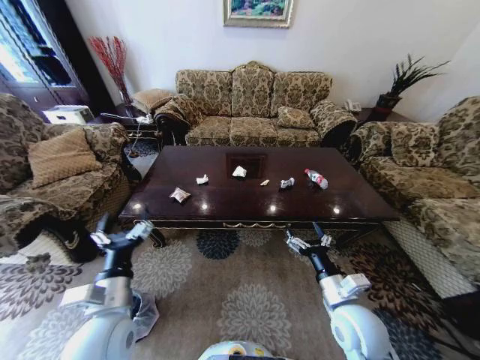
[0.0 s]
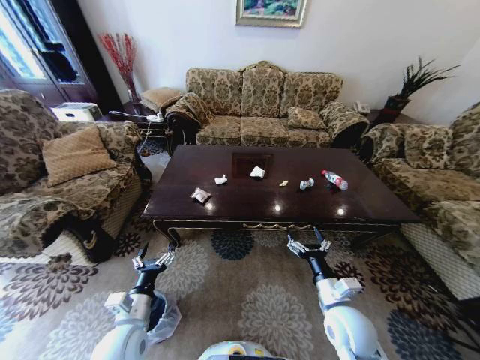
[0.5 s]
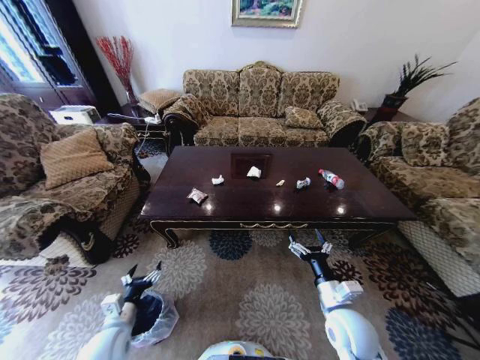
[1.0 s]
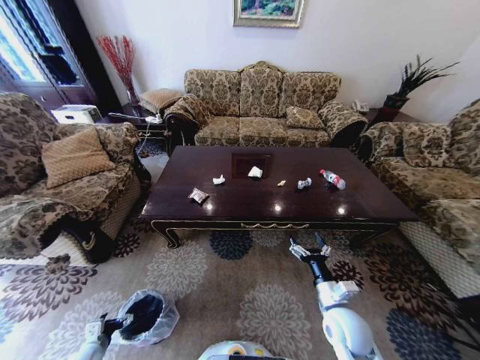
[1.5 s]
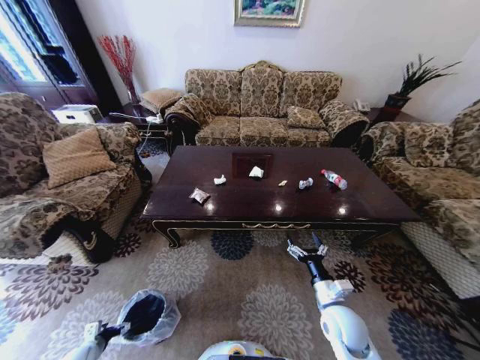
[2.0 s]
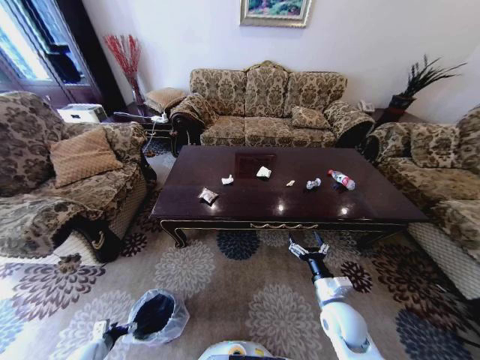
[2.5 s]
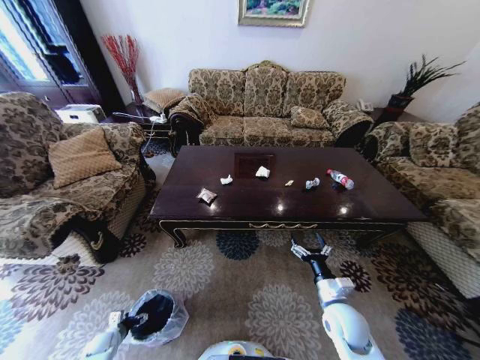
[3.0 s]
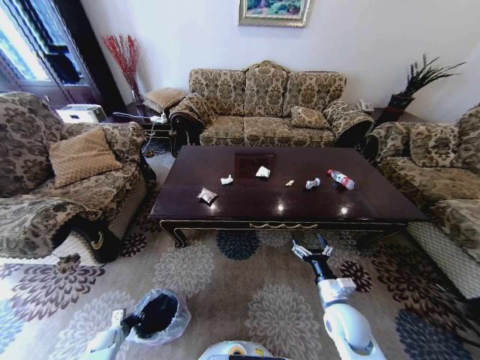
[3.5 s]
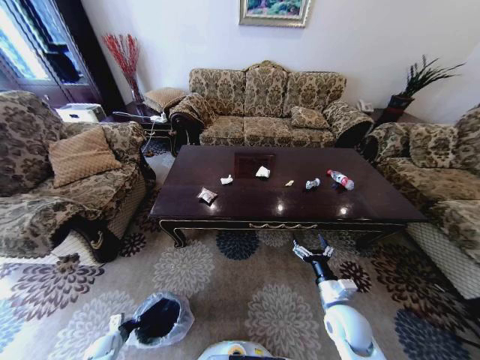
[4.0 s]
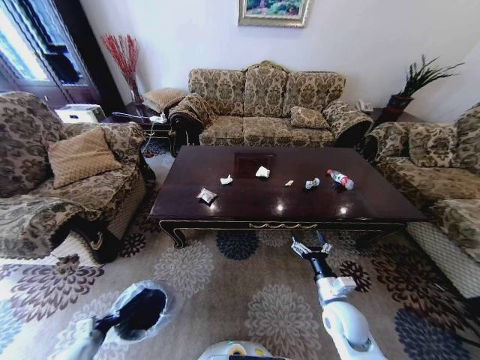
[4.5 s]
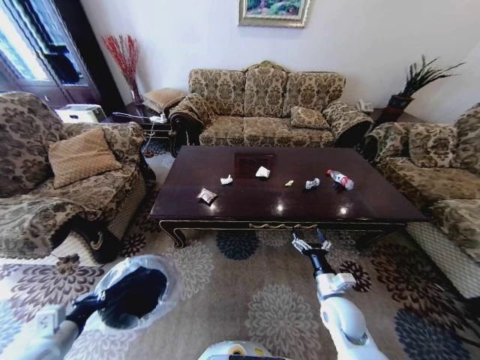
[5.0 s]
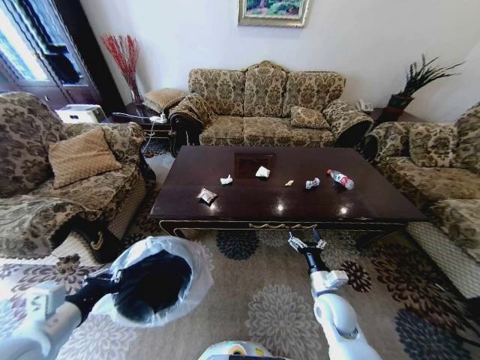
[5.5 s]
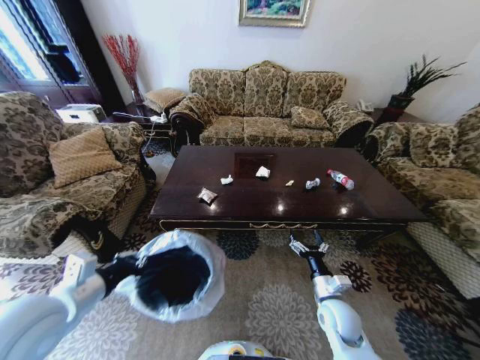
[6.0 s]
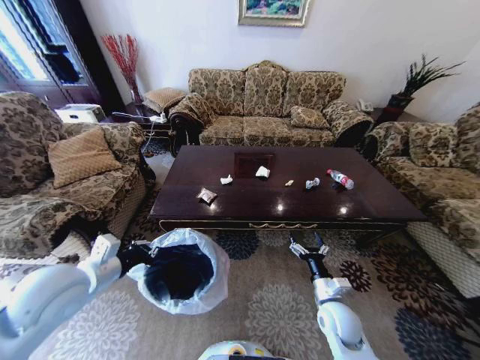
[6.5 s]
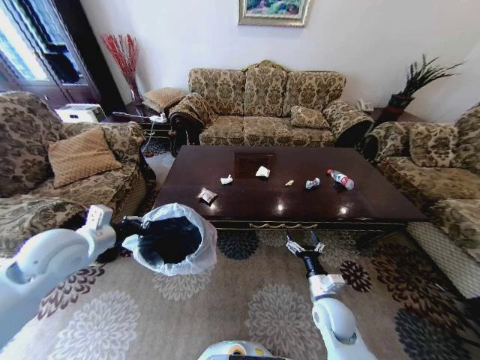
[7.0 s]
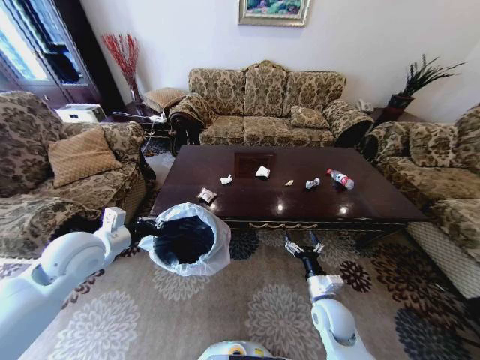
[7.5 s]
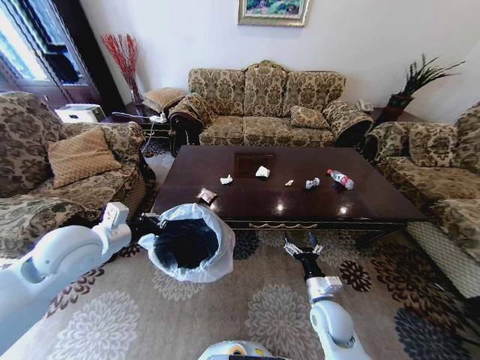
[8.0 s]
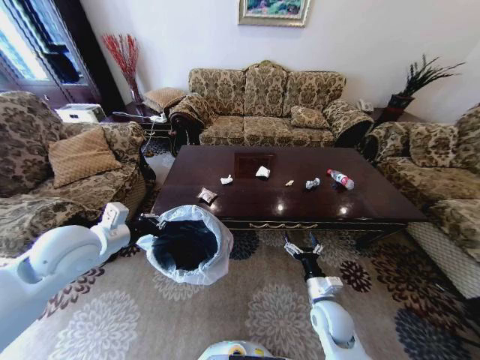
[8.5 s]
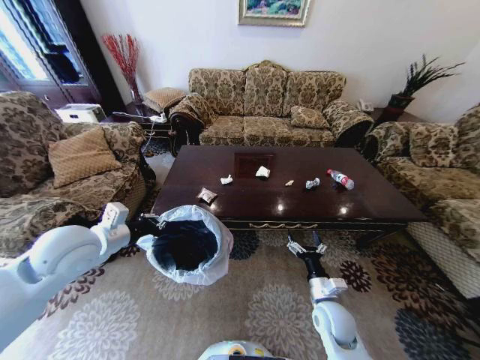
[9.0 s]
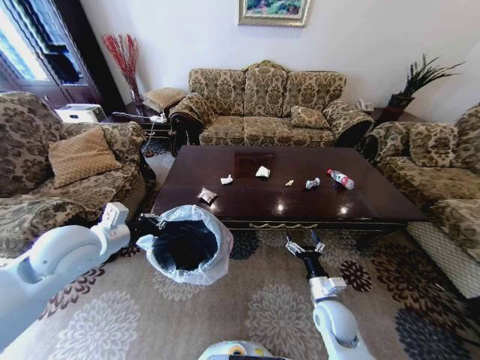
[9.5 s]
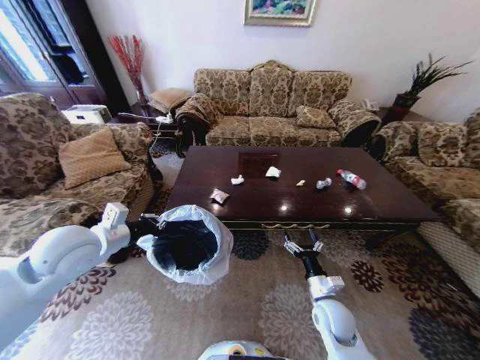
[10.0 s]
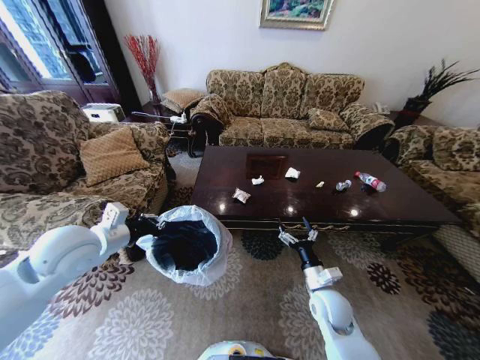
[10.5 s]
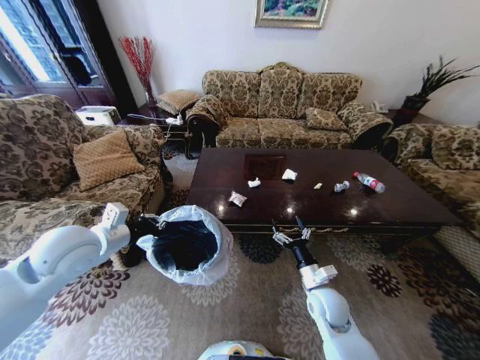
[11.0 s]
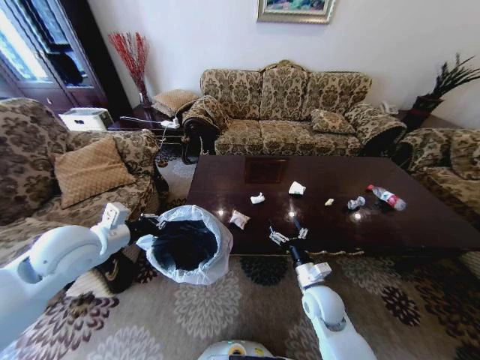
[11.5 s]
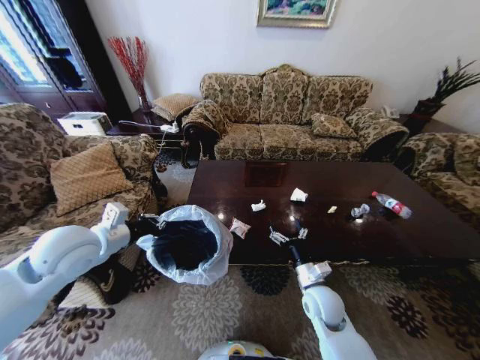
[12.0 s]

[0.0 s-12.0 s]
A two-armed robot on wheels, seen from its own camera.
Task of the whole recording: Move to the front of the table and place the trash on the table into the trash bin.
2.0 to 4.0 s: The left gripper moves downward, some 5 cm, and closes.
4.0 to 6.0 s: The left gripper moves upward, some 50 cm.
6.0 to 8.0 s: The left gripper is displaced forward by some 10 cm.

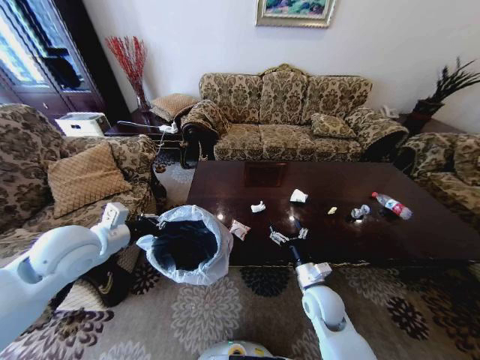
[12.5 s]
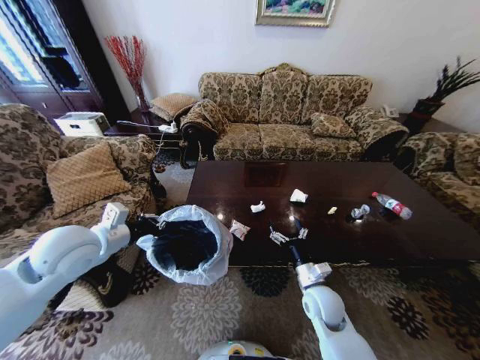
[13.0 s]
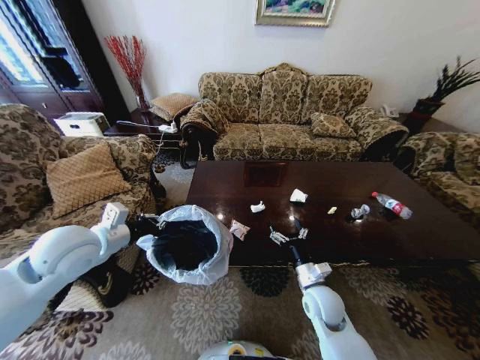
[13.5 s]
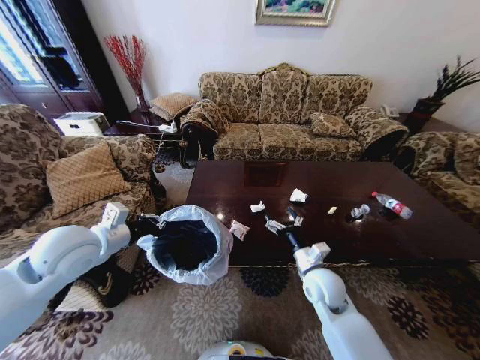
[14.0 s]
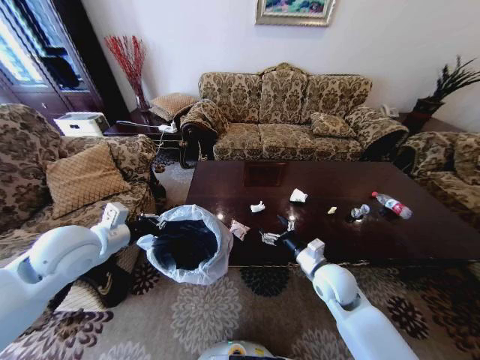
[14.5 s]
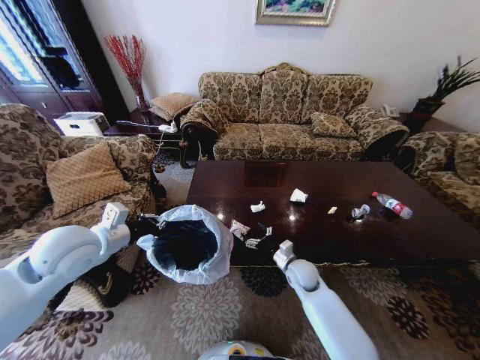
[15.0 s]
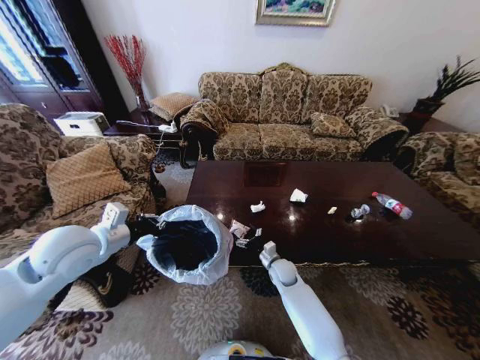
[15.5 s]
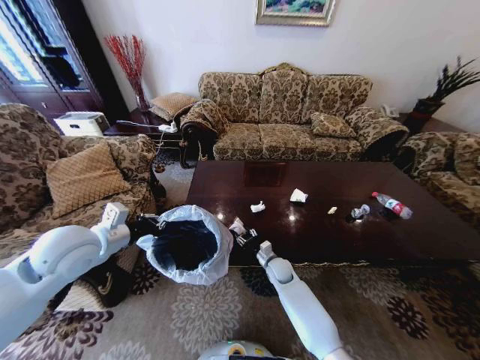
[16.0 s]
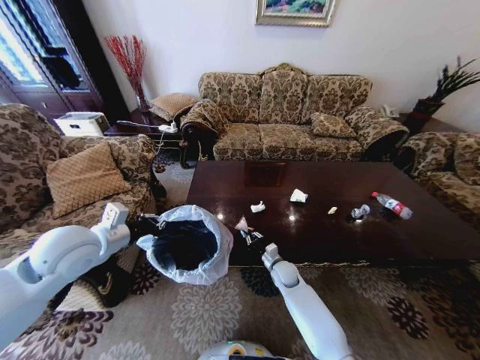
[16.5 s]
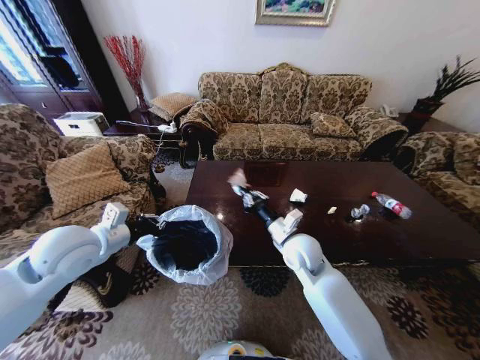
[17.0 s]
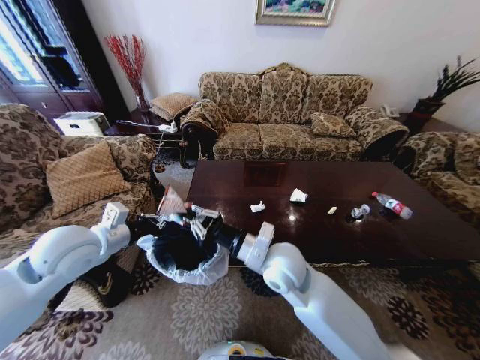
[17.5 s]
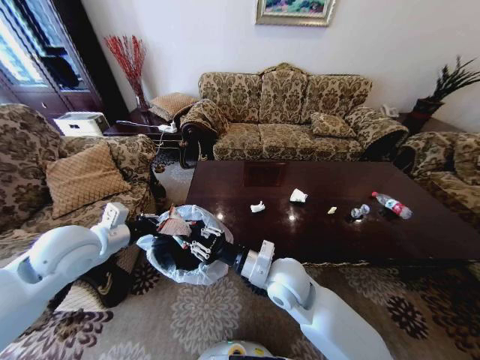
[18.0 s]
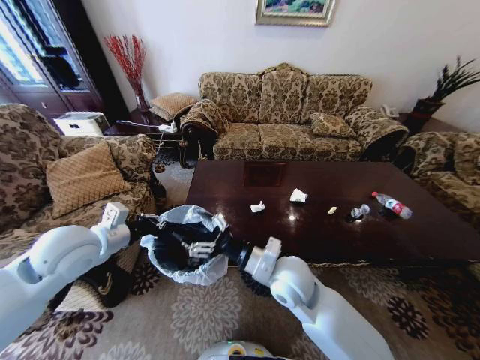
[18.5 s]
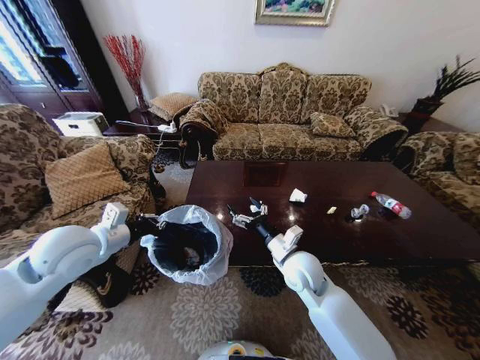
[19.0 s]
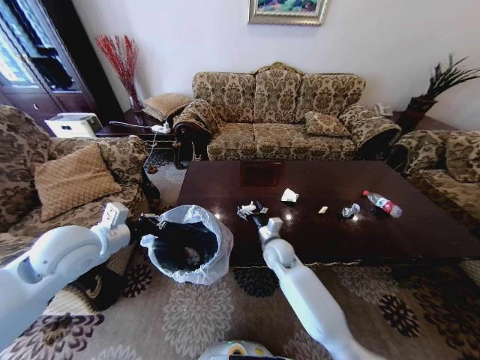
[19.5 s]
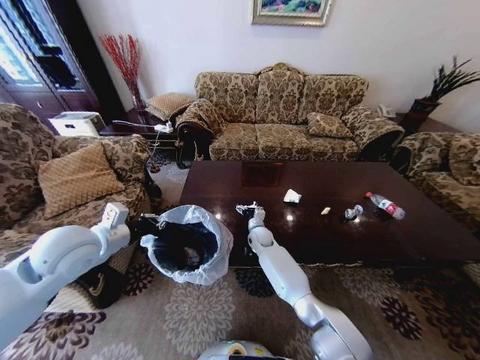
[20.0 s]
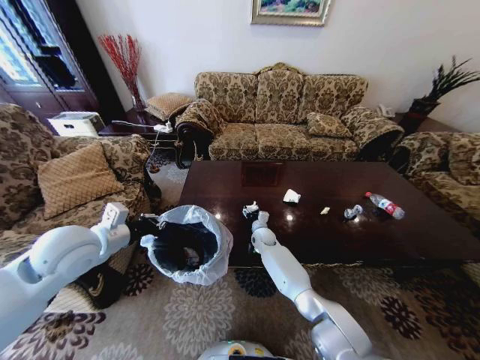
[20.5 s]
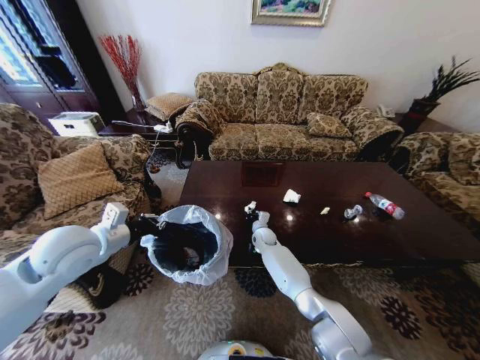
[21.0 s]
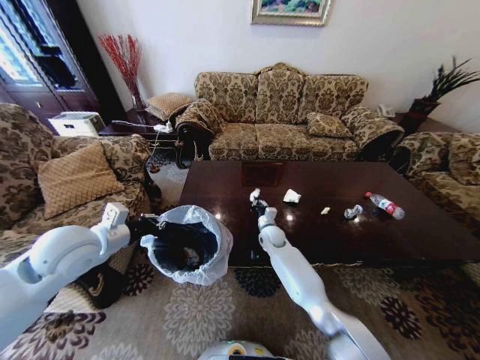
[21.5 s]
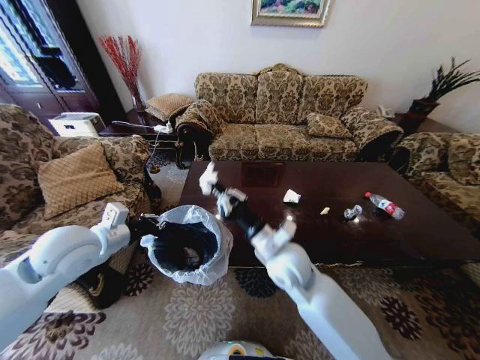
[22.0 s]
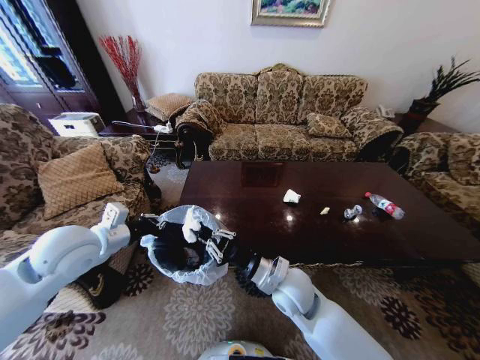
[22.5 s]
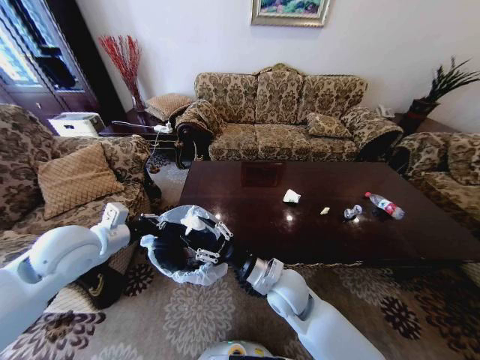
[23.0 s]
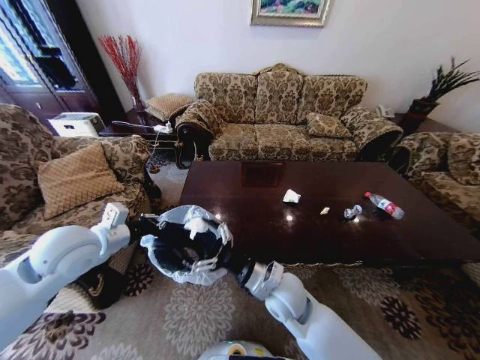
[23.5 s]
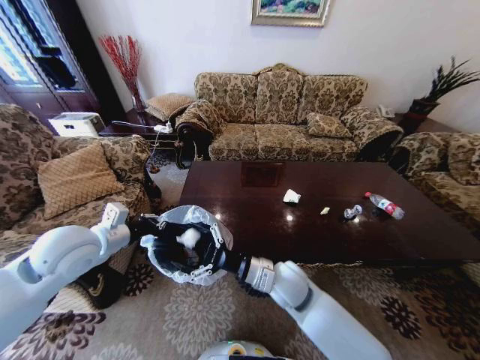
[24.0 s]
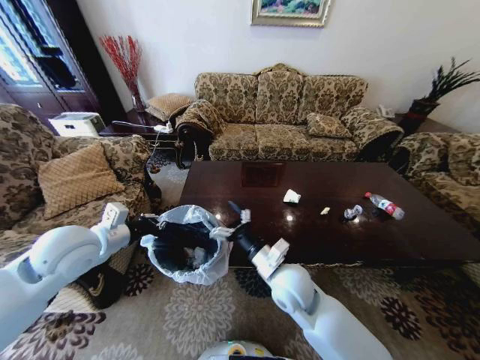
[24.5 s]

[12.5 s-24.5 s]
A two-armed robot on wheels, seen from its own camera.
Task of the whole recording: Move to the front of the table and place the trash on the table into the trash bin.
12.5 to 14.5 s: The right gripper moves upward, roughly 5 cm.
14.5 to 16.5 s: The right gripper is displaced downward, forward and to the left by about 20 cm, and closes.
16.5 to 18.5 s: The right gripper travels upward and backward by some 25 cm, and opens its fingers.
18.5 to 20.5 s: The right gripper goes about 30 cm forward and downward.
20.5 to 22.5 s: The right gripper heads backward and upward, covering roughly 30 cm, and closes.
22.5 to 24.5 s: The right gripper opens.

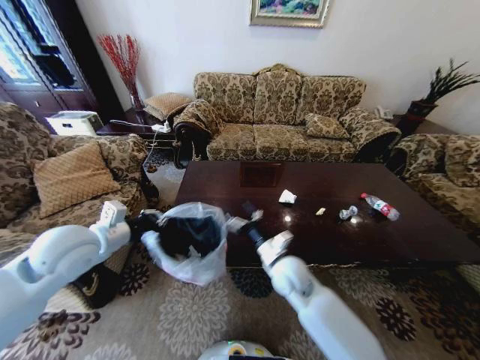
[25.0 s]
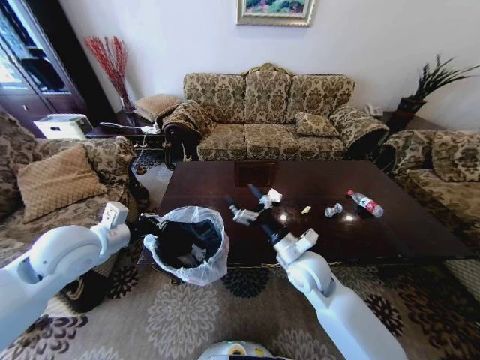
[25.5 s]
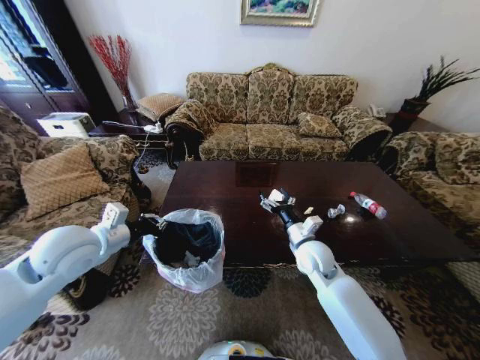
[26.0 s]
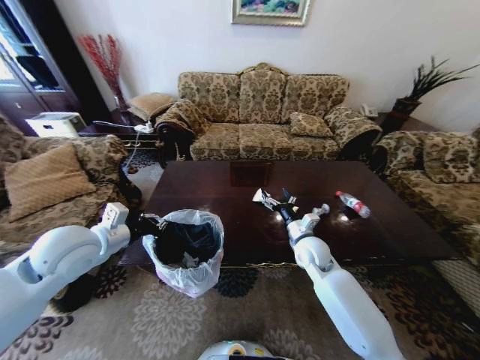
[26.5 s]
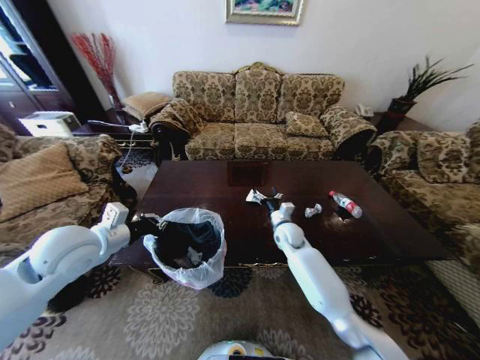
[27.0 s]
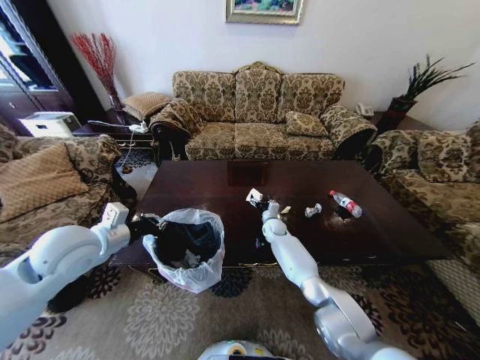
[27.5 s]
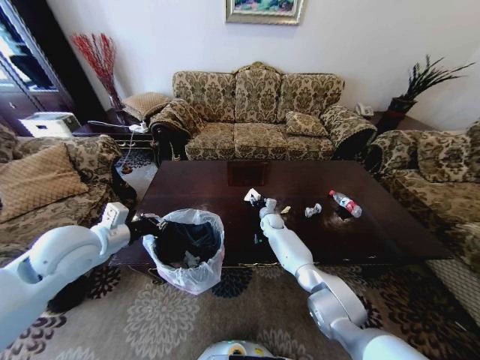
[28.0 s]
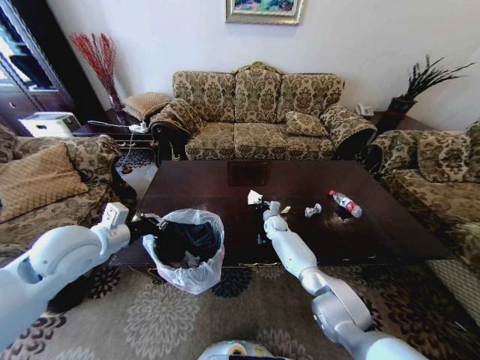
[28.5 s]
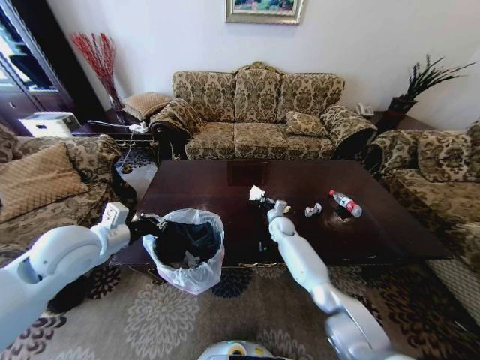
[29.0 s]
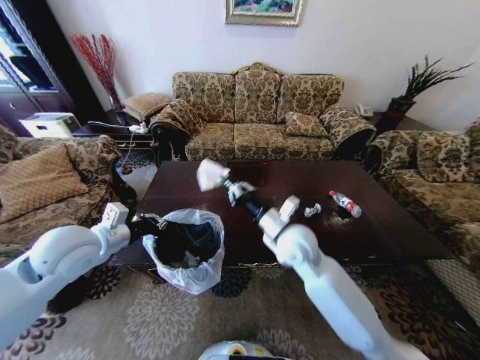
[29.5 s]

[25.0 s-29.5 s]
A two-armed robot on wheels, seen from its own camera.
Task of the whole recording: Move to the front of the table and place the trash on the table into the trash bin.
25.0 to 27.0 s: The right gripper shifts some 15 cm forward.
27.0 to 29.5 s: The right gripper is displaced upward and backward by about 20 cm, and closes.
